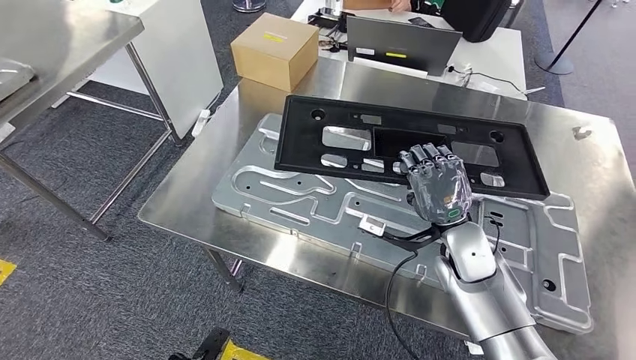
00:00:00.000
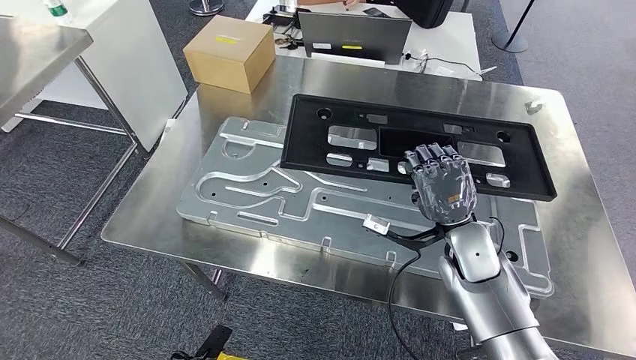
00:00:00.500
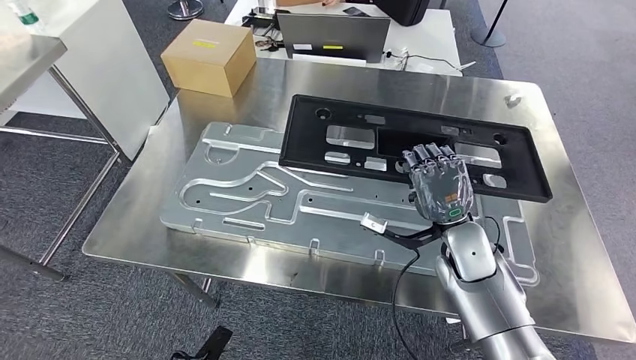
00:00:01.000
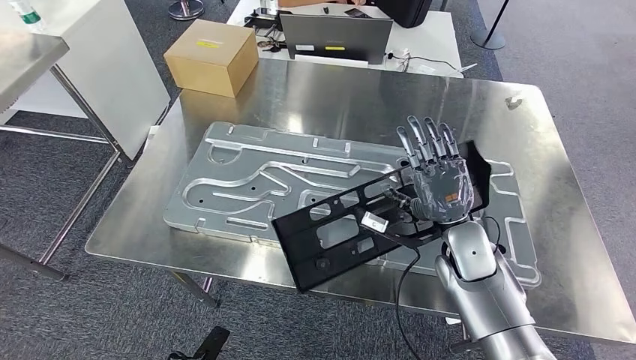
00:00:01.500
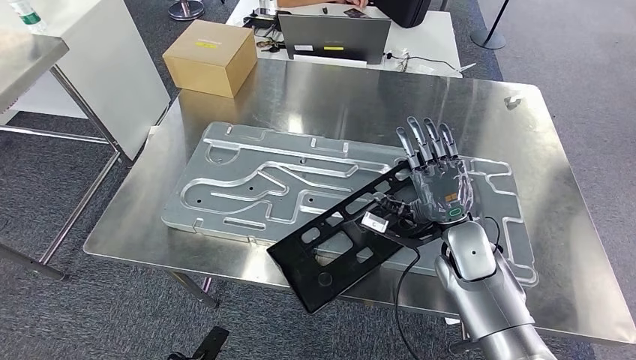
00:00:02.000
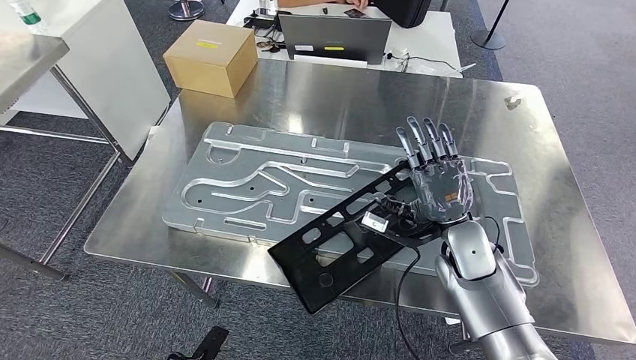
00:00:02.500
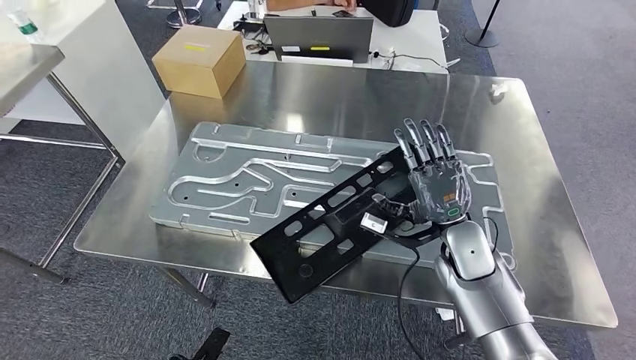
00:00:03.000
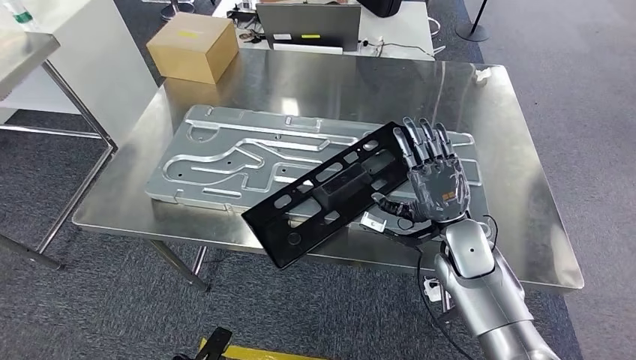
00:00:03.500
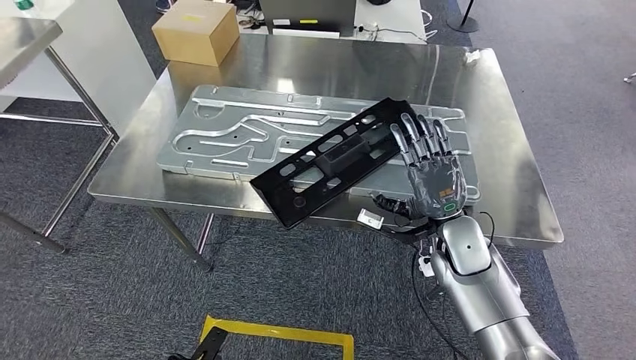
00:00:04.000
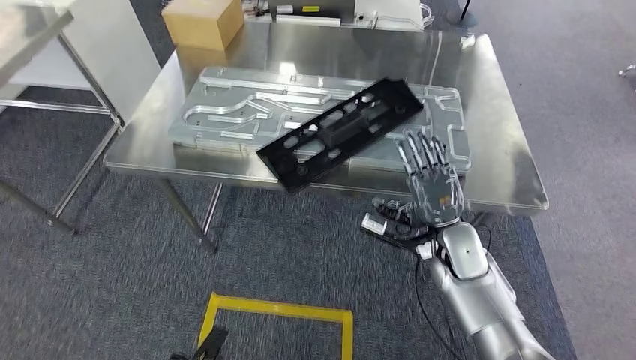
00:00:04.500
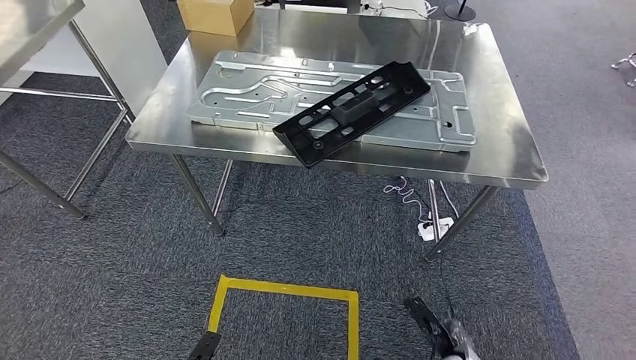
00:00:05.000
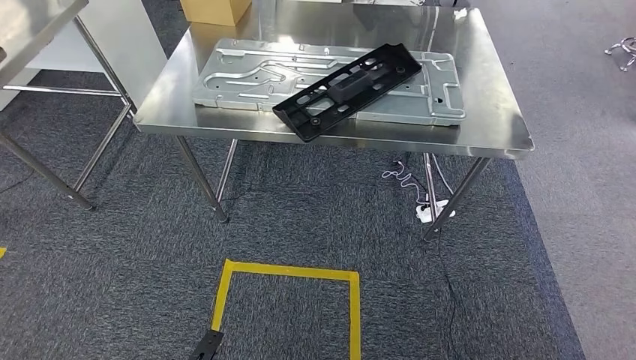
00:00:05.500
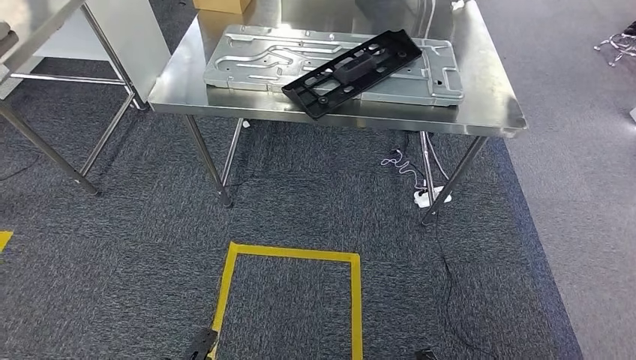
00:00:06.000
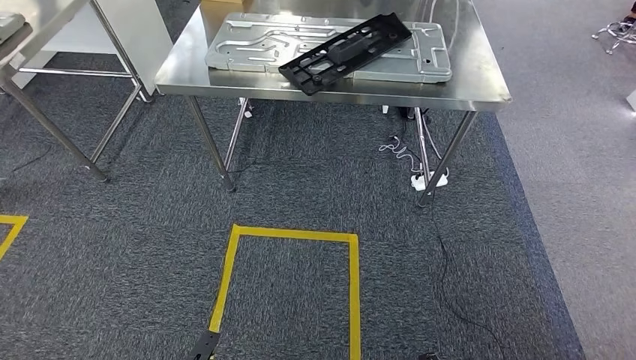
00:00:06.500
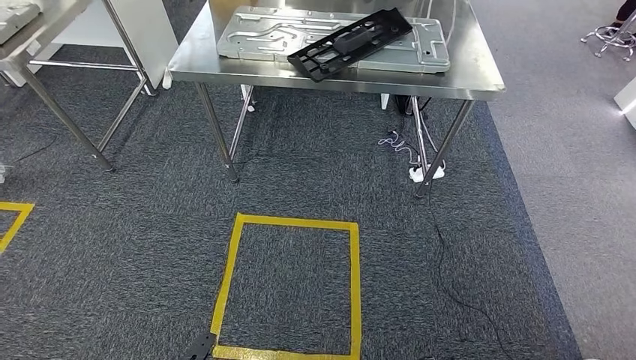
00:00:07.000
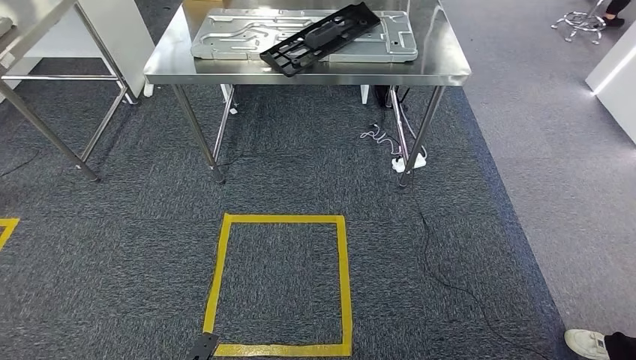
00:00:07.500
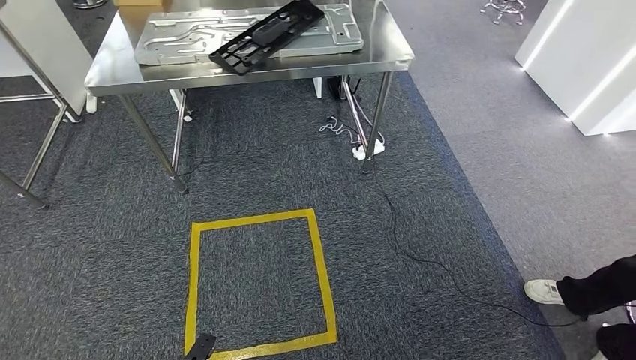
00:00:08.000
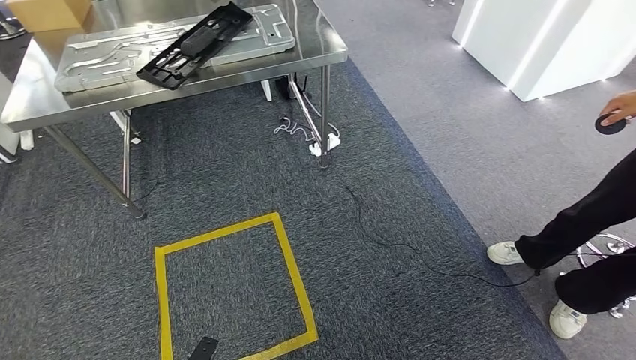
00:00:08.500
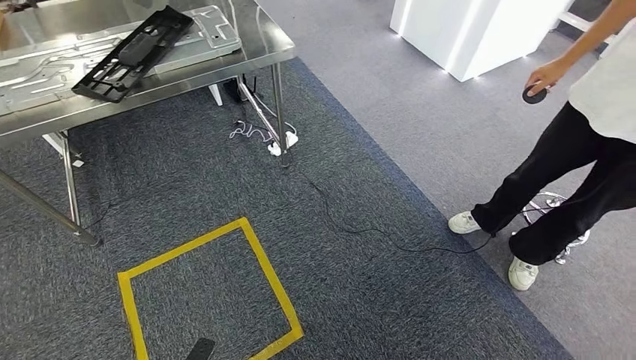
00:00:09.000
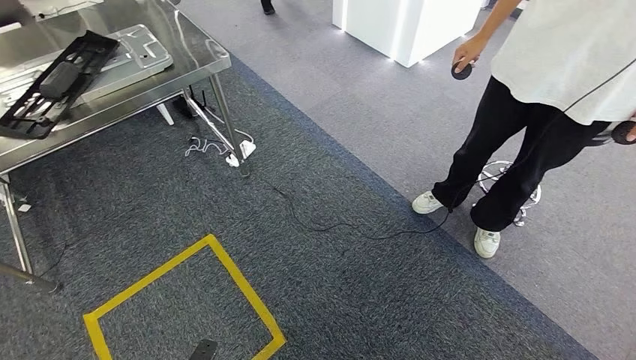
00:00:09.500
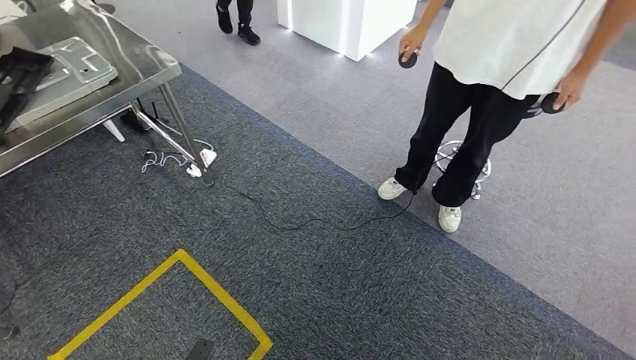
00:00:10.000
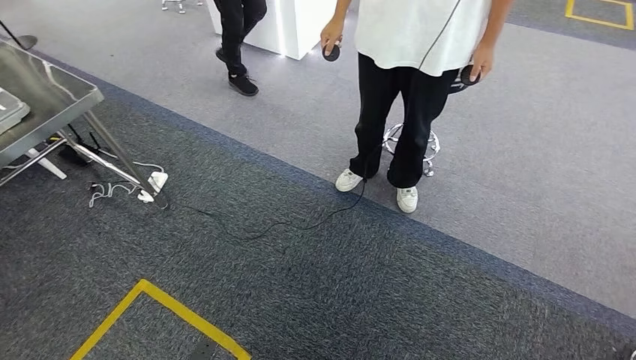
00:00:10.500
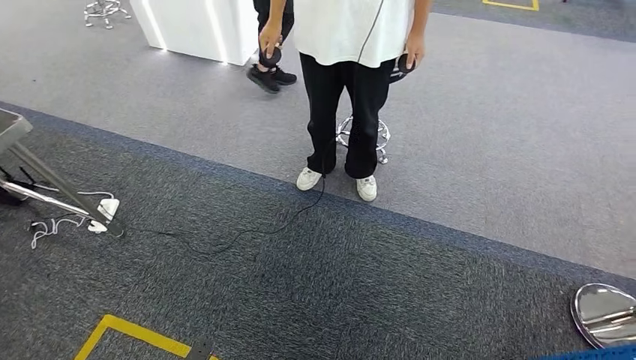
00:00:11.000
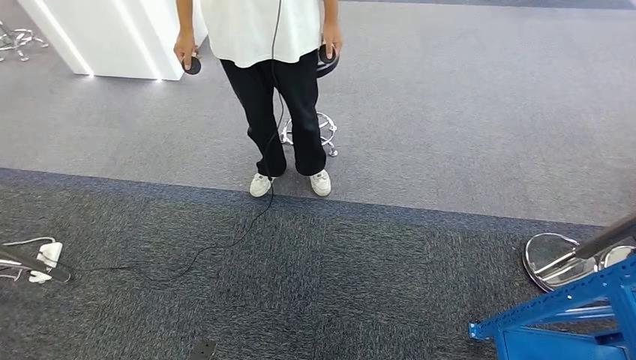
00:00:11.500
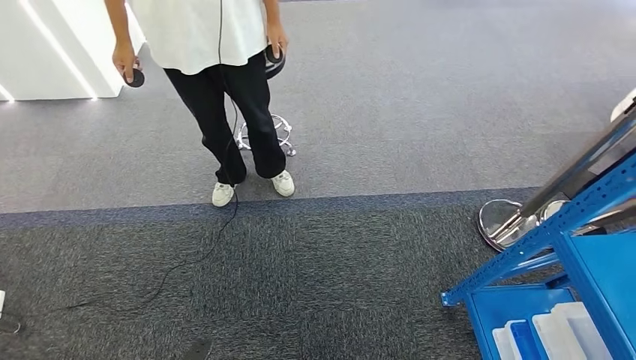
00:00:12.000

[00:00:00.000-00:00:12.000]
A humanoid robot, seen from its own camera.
Step, 00:00:00.000 to 00:00:03.500: Insert the large material into the corresponding slot on the workbench.

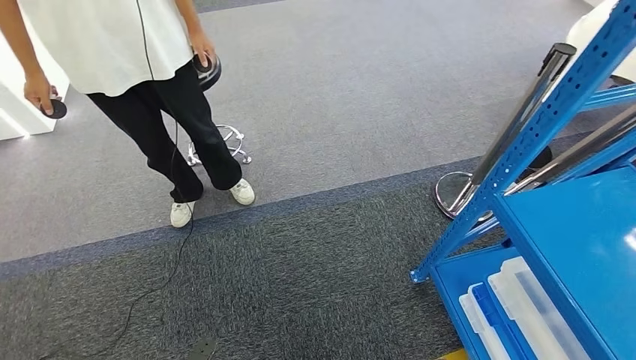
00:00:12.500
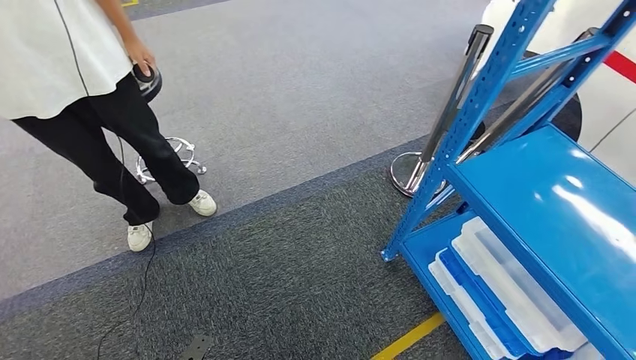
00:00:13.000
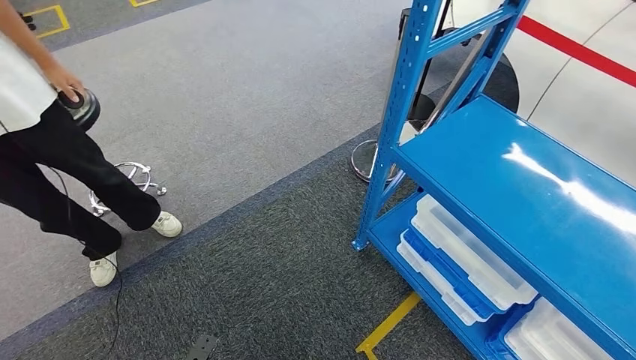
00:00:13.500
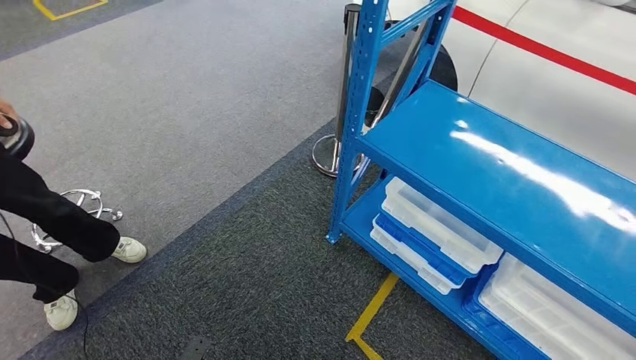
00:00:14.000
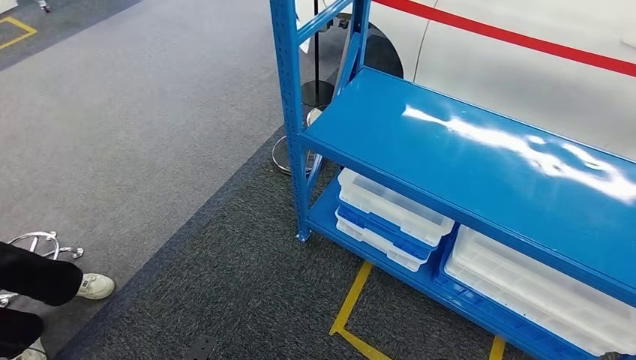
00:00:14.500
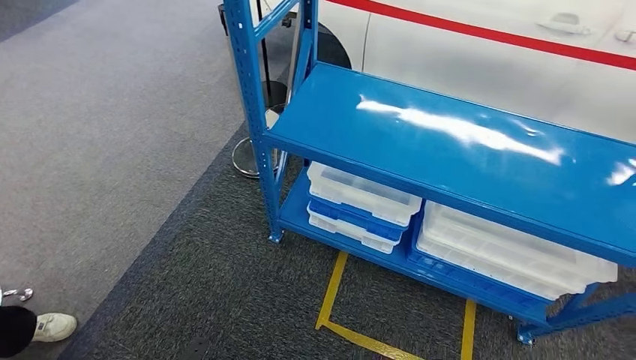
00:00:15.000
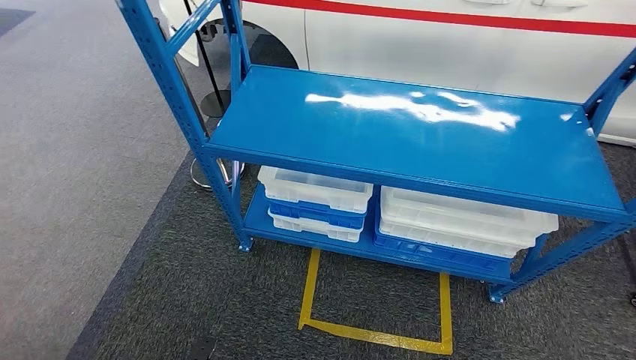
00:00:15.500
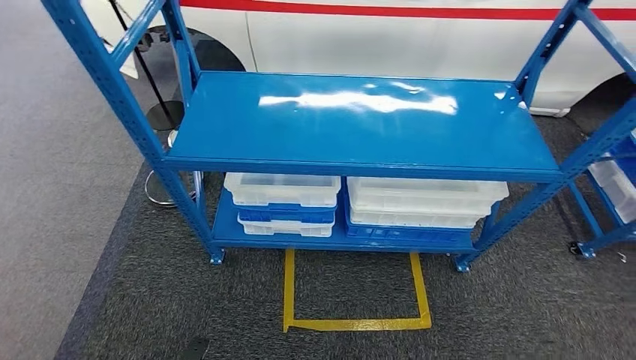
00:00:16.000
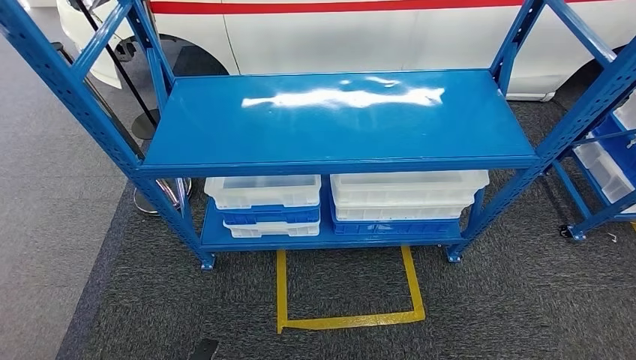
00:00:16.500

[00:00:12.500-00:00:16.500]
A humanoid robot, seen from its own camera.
Step, 00:00:12.500 to 00:00:16.500: Return to the initial position at the shelf.
